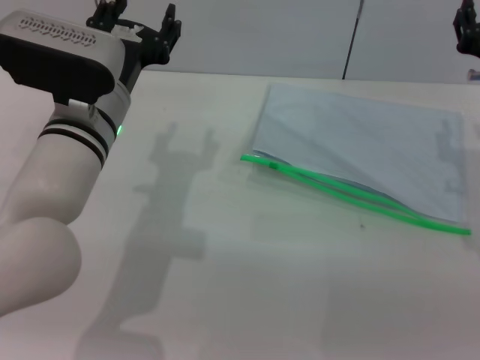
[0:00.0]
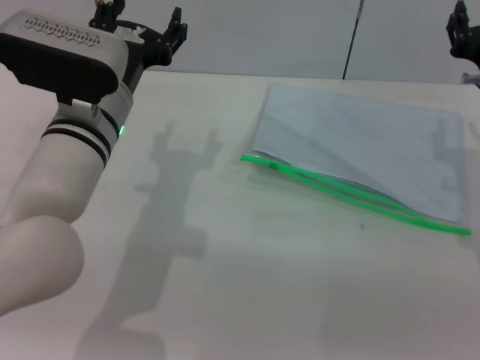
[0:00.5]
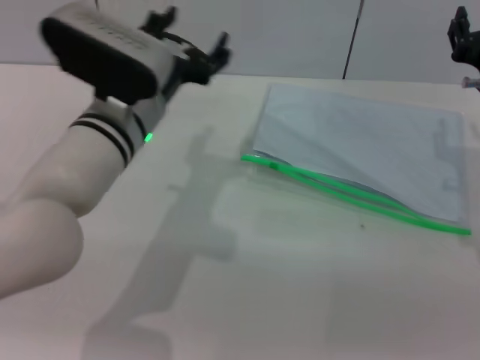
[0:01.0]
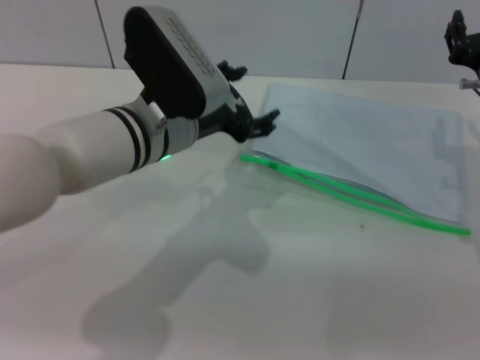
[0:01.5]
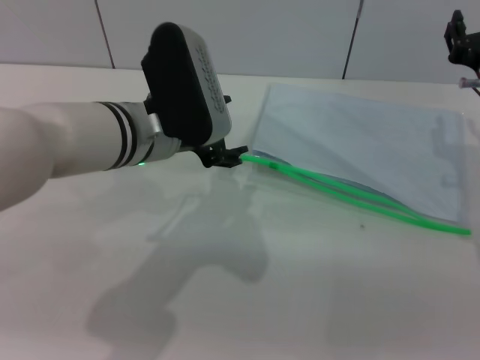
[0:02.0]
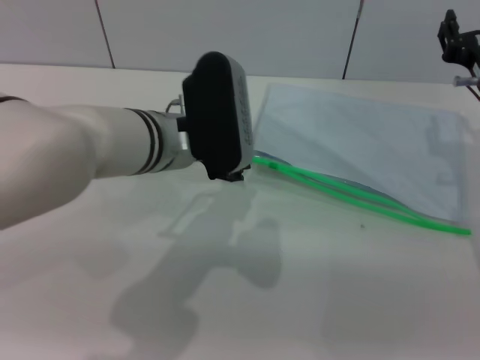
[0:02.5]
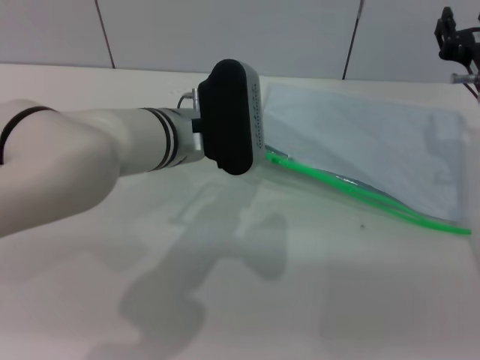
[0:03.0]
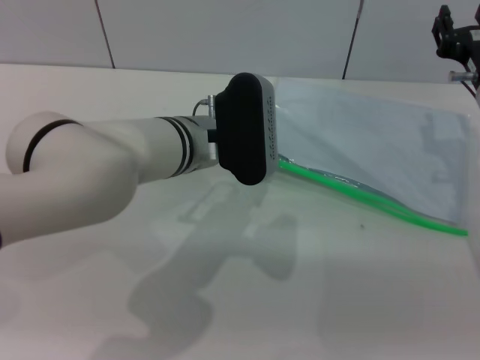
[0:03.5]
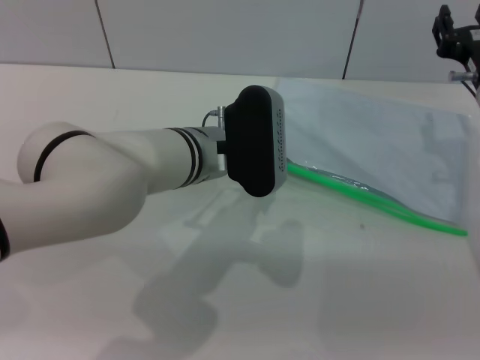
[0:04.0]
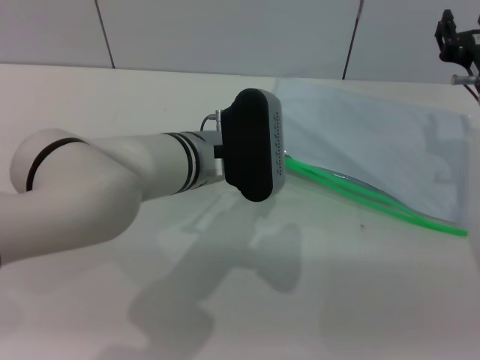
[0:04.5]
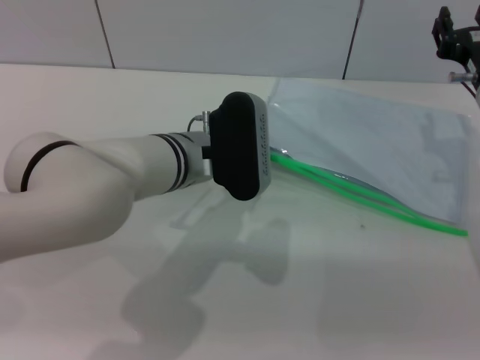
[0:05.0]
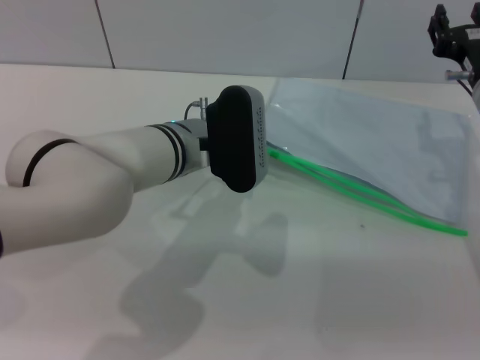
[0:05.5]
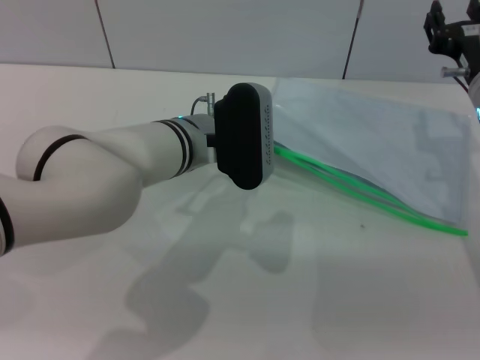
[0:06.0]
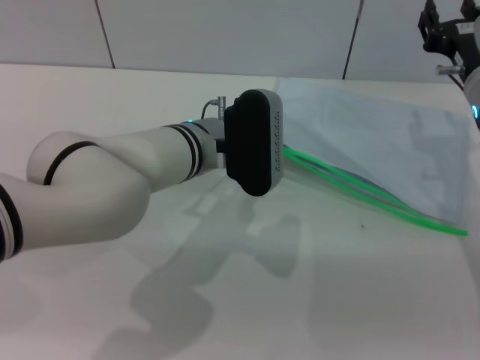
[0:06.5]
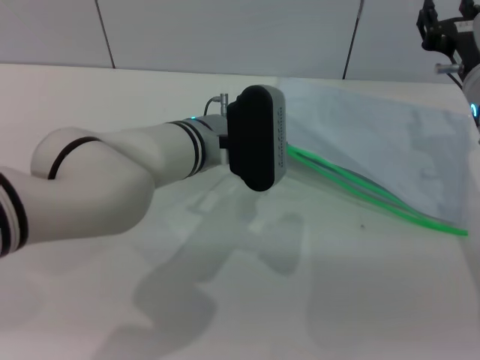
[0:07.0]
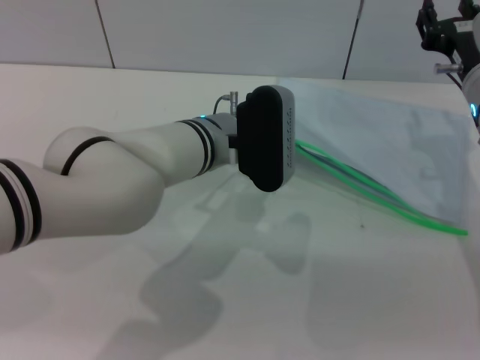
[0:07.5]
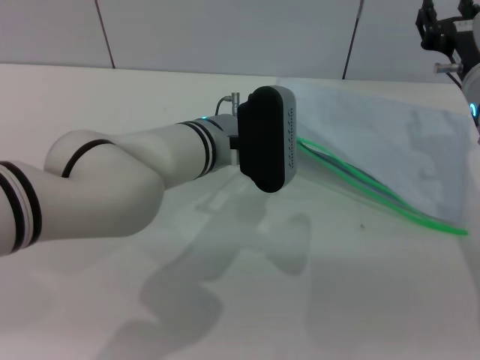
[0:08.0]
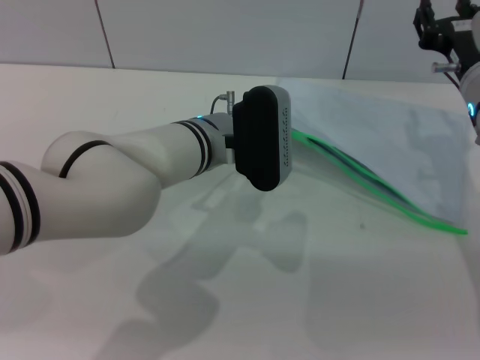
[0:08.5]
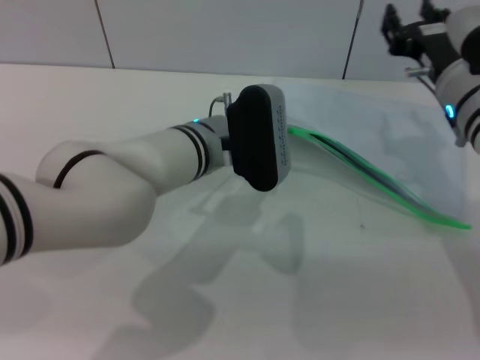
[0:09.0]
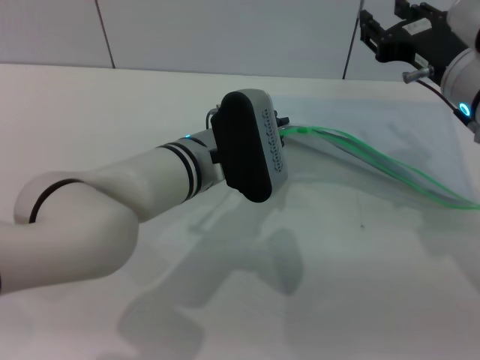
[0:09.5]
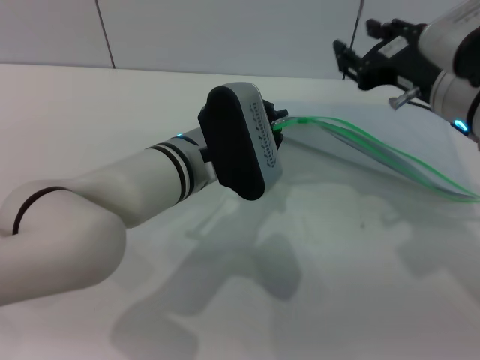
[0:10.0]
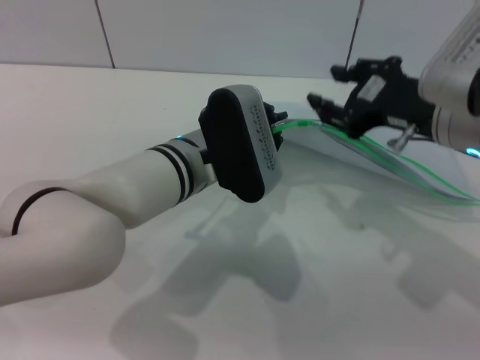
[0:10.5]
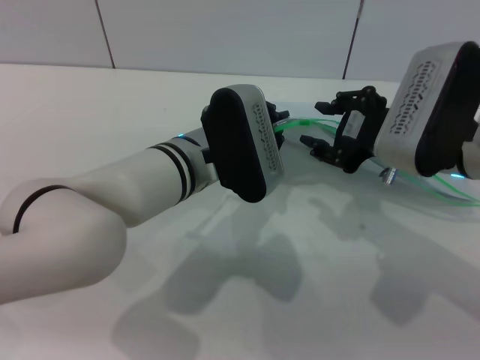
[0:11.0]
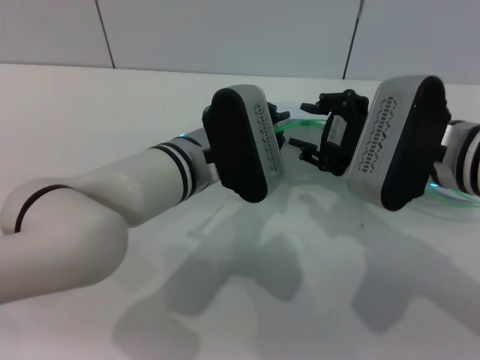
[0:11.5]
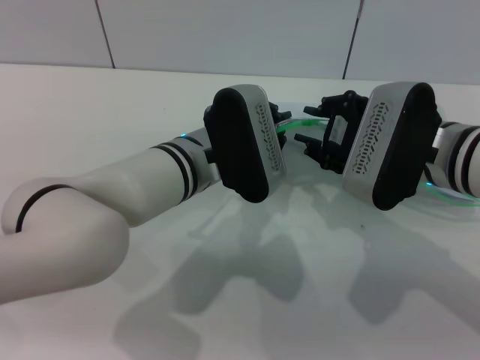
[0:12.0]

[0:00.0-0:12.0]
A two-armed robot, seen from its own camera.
Step, 0:00.0 to 0:10.0: Pick up the transparent plastic bag with the left gripper.
0:02.0 to 0:04.0: The left gripper shifts about 5 cm to the right.
0:04.0 to 0:08.0: The grippers move only a little.
0:08.0 to 0:10.0: The left gripper closes its fingers, while the right gripper ends up about 5 cm from where it was.

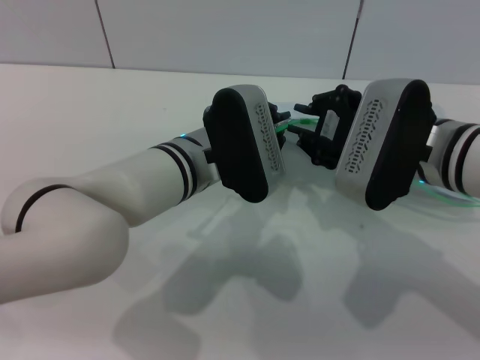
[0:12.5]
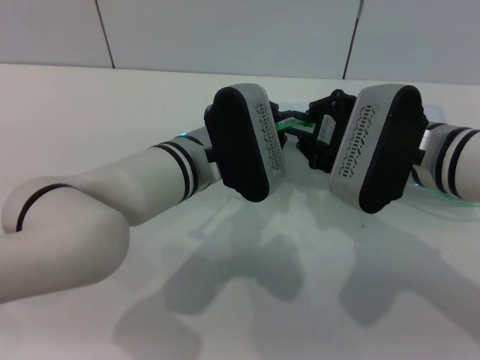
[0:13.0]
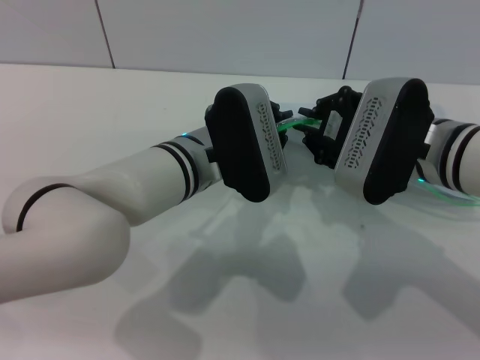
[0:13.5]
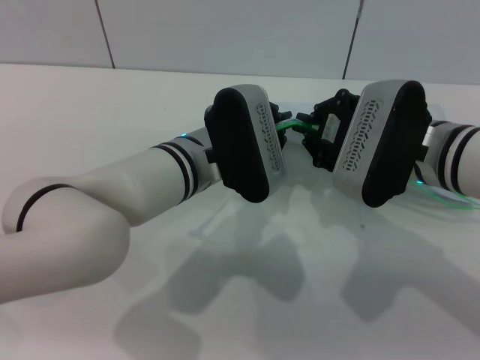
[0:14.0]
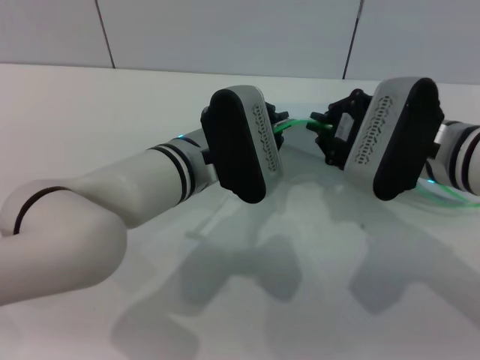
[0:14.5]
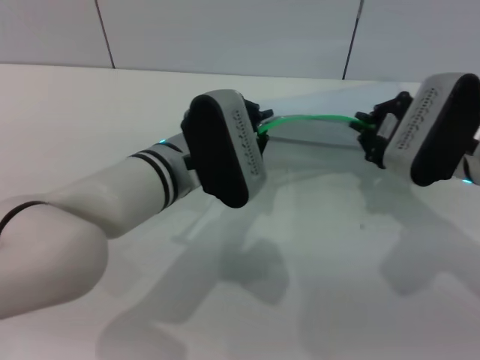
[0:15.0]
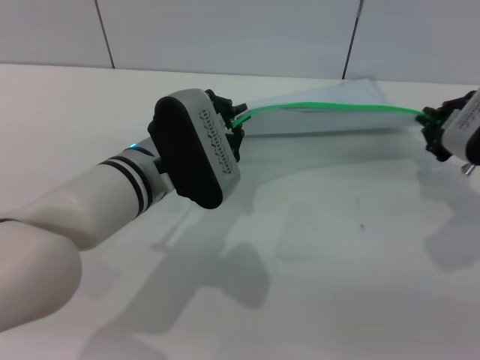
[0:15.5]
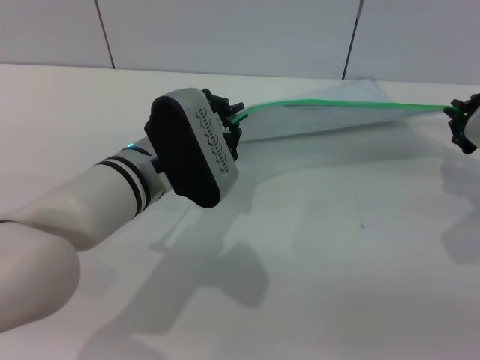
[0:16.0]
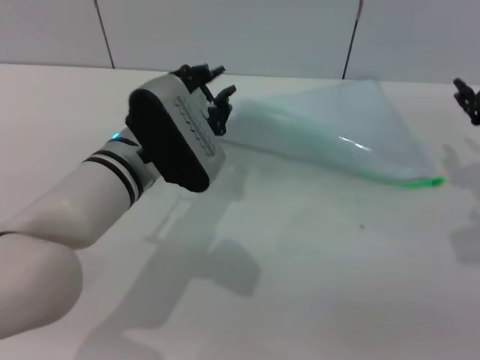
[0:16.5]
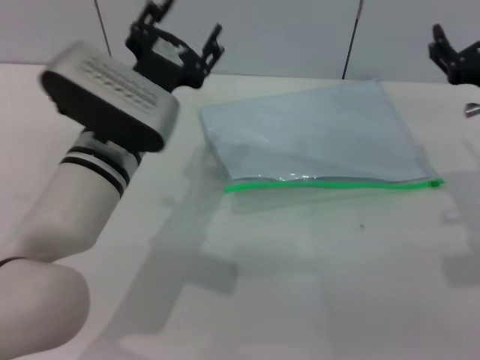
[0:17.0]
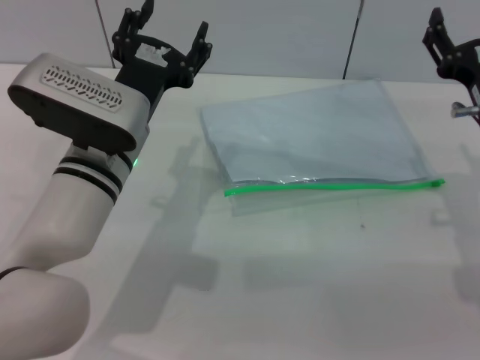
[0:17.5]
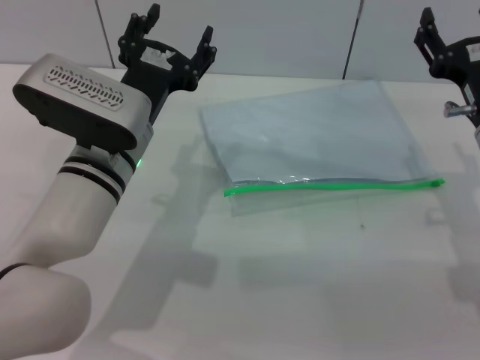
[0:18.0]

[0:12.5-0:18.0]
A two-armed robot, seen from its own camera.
Step, 0:12.5 to 0:16.0: Pulling up the zipper on the transparent plastic bag with the right gripper to close it.
Step, 0:16.5 to 0:17.0: Place the transparent plastic bag.
0:12.5 to 0:14.5: There are only small adjustments of the grippers.
0:14.5 to 0:16.0: The right gripper travels to the right by roughly 10 cm.
0:16.0 to 0:18.0: The left gripper opens up. The right gripper shifts about 5 cm to the left, and opens up.
